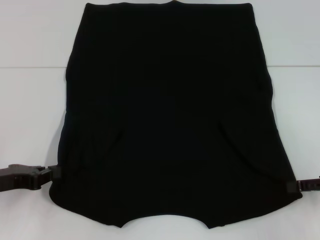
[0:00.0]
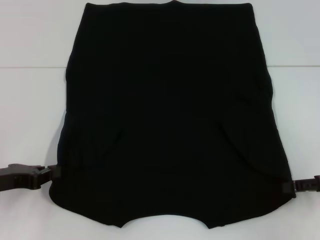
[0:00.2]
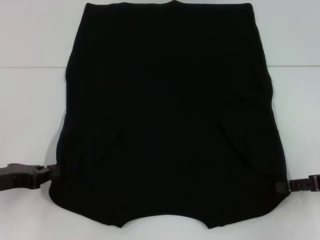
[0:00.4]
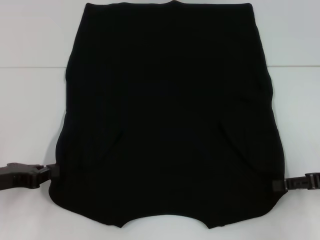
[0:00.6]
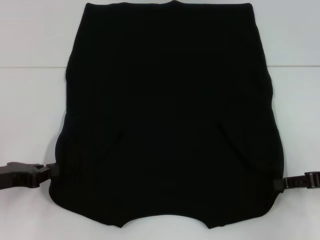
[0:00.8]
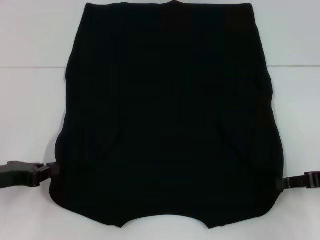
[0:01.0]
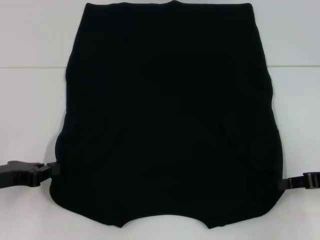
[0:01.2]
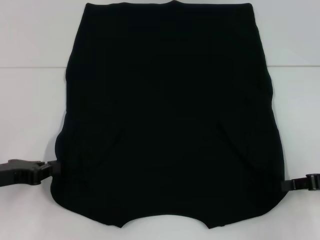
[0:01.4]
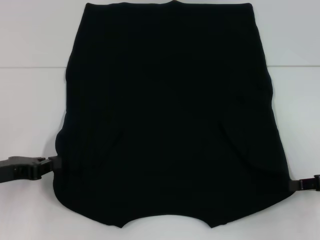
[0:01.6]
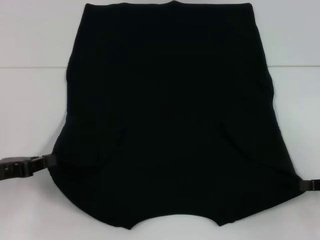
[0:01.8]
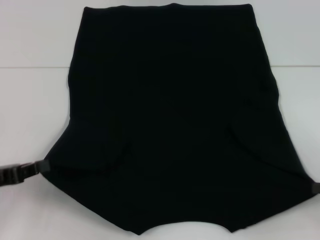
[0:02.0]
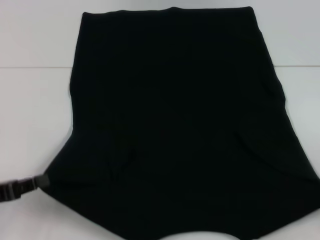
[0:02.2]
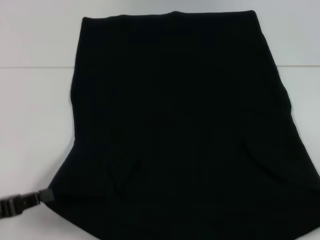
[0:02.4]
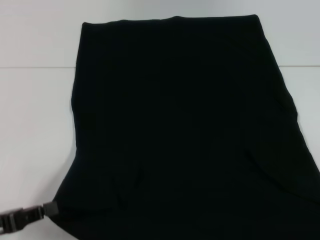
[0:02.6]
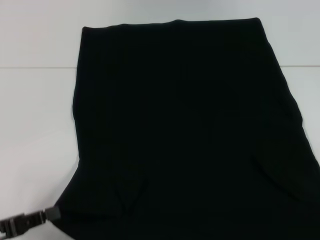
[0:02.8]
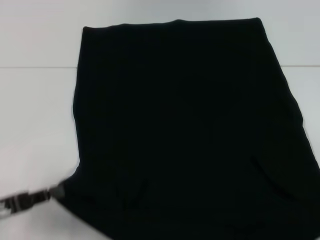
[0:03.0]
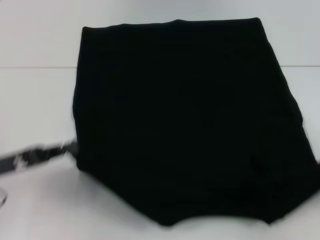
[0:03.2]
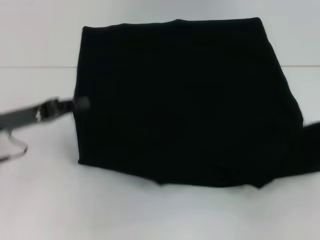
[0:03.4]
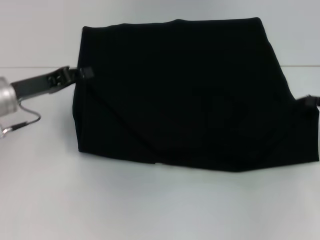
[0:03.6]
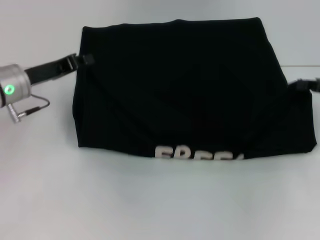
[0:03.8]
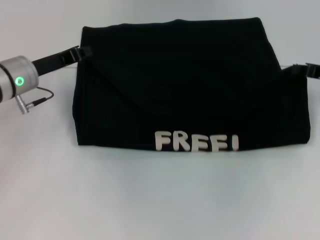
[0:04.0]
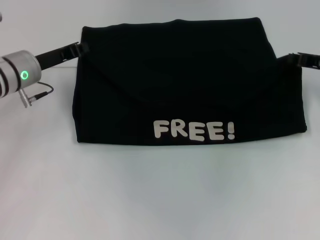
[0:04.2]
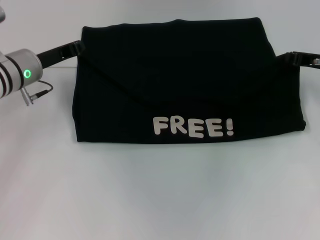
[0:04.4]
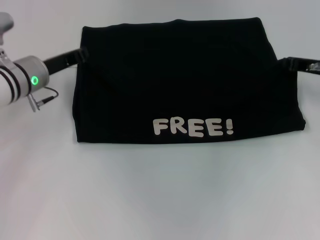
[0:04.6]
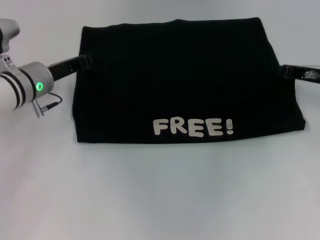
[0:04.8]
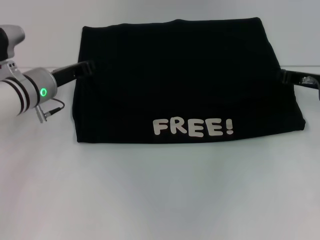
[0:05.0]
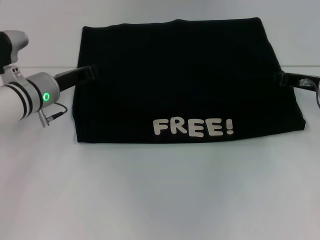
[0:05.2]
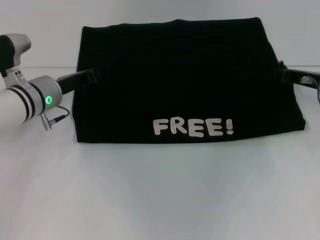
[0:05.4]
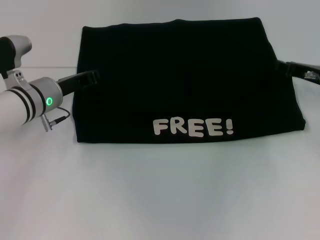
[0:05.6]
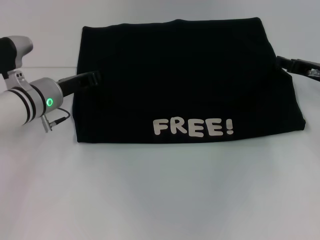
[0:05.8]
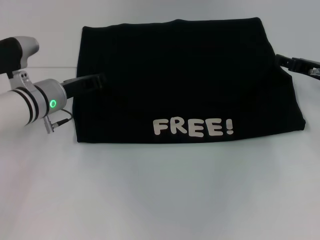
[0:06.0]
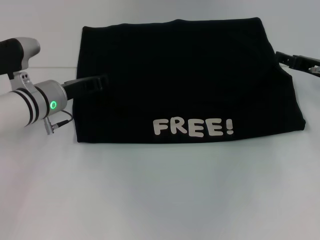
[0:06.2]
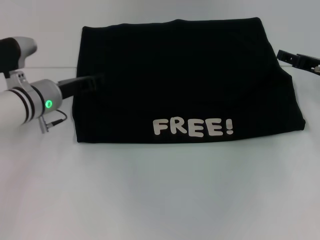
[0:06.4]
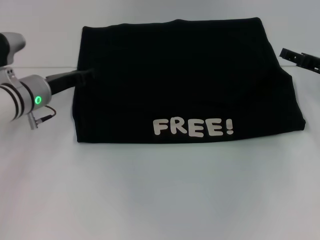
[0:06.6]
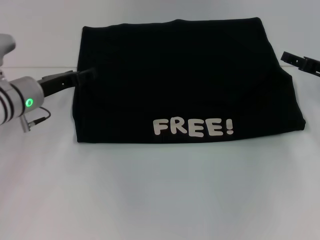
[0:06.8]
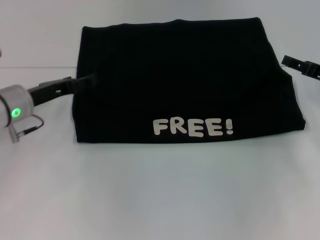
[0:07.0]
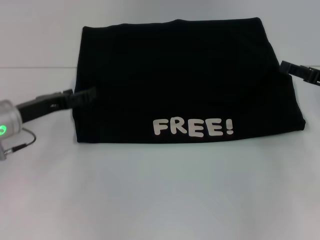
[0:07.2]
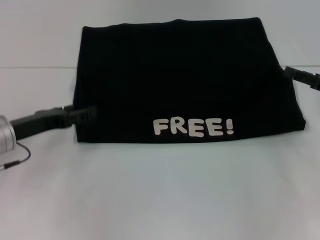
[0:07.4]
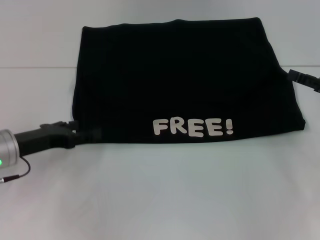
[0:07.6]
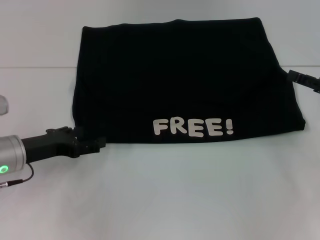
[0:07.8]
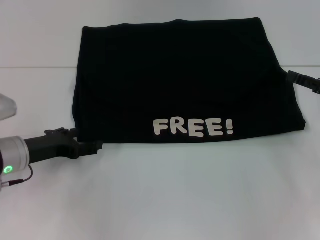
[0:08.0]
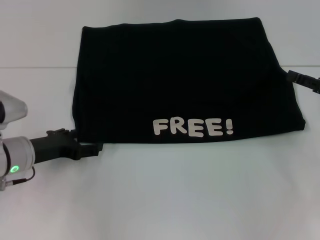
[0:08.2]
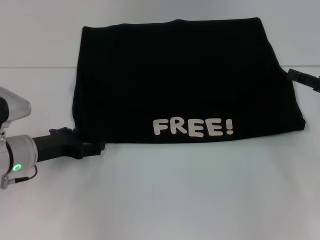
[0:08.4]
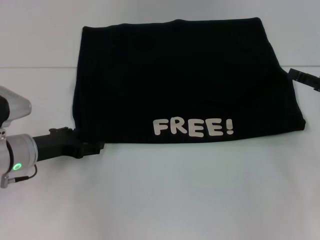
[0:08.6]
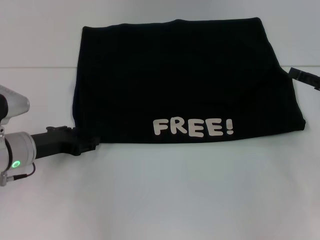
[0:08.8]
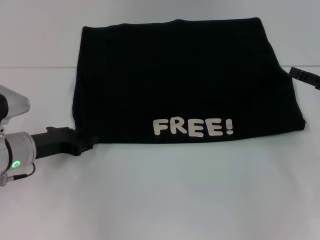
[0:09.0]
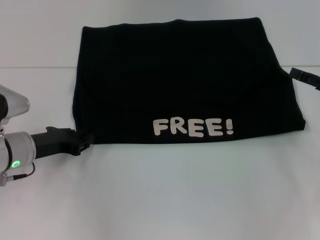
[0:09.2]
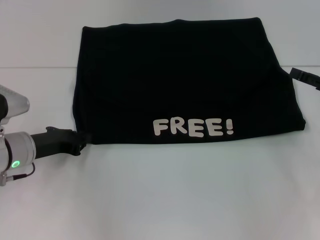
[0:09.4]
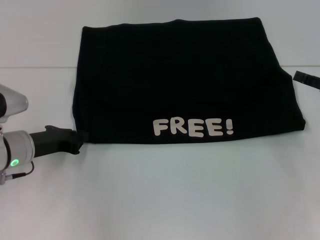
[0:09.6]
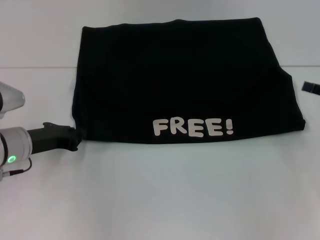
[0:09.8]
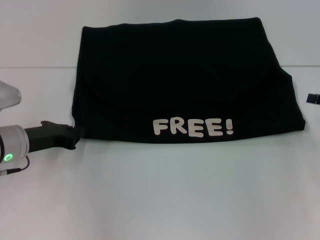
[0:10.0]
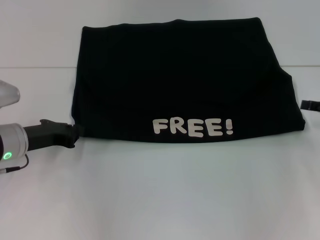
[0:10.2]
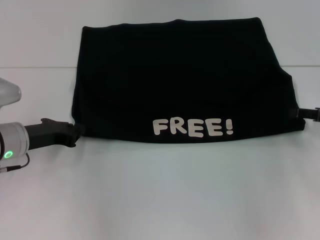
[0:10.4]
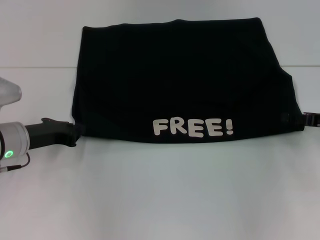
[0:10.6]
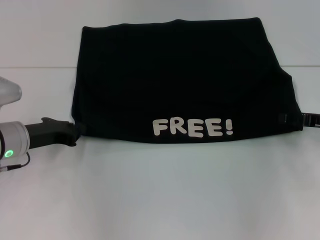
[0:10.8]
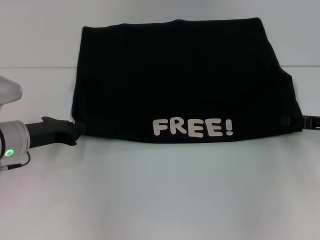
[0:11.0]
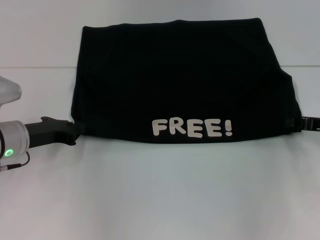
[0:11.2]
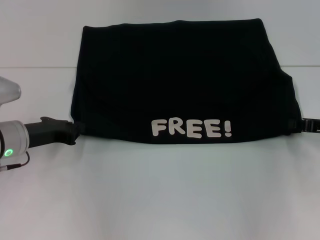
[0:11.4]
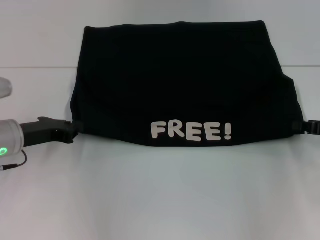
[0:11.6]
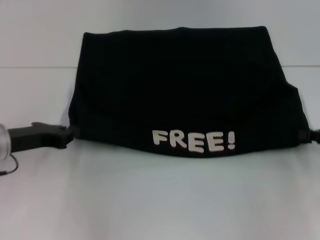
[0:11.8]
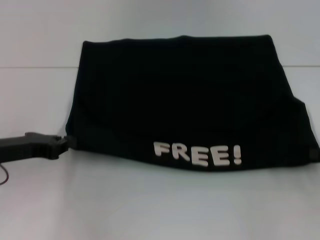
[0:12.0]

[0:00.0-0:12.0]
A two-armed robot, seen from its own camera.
Step, 0:00.0 to 0:01.8: Grab the bottom right corner with your right hand.
Step, 0:02.0 to 0:05.6: Fold the clothes with your left hand.
Step, 0:02.0 to 0:05.6: Fold the clothes with your right hand.
0:00.0 to 0:01.6: The right gripper closes up.
0:01.6 to 0:03.0: The right gripper shifts approximately 10 cm backward and to the right. Meanwhile the left gripper heads backward, covering about 10 cm.
0:03.0 to 0:04.4: The left gripper shifts about 25 cm forward, while the right gripper shifts about 25 cm forward and to the left.
0:04.4 to 0:06.0: The left gripper shifts by about 5 cm, while the right gripper opens up.
0:06.0 to 0:07.6: The right gripper shifts roughly 10 cm backward and to the right, while the left gripper goes roughly 10 cm backward and to the left, and opens up.
0:07.6 to 0:09.0: The grippers stay close to where they were, moving slightly.
0:09.0 to 0:10.4: The left gripper closes.
0:10.4 to 0:12.0: The left gripper moves some 5 cm. The right gripper shifts some 5 cm backward, and closes.

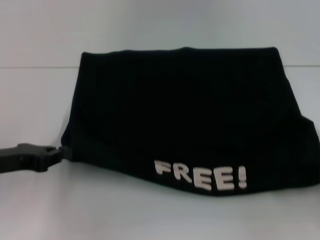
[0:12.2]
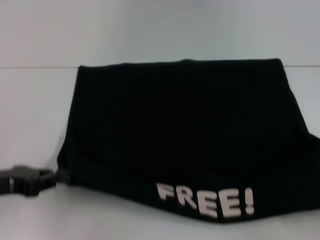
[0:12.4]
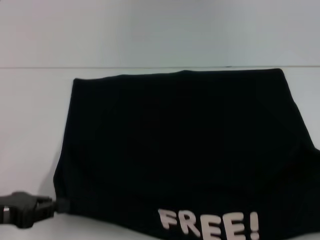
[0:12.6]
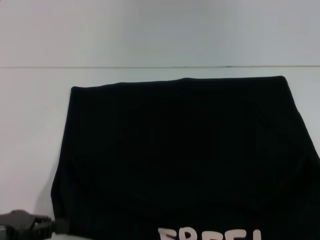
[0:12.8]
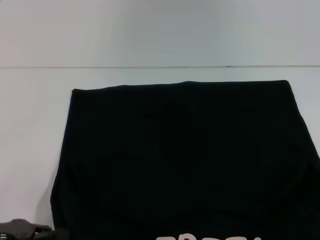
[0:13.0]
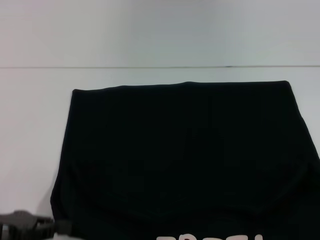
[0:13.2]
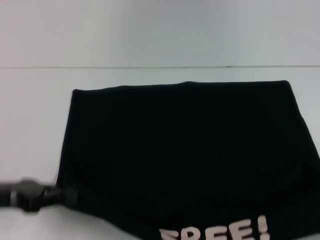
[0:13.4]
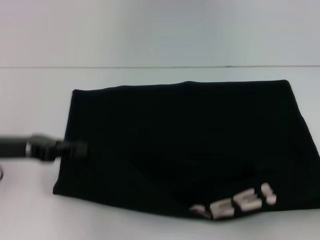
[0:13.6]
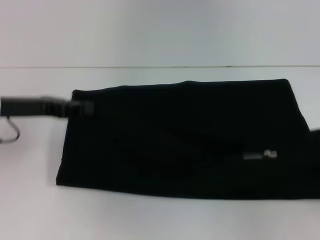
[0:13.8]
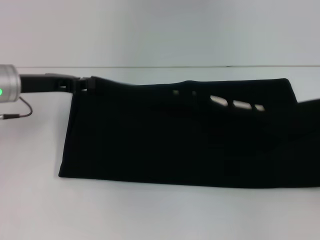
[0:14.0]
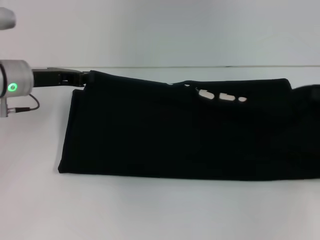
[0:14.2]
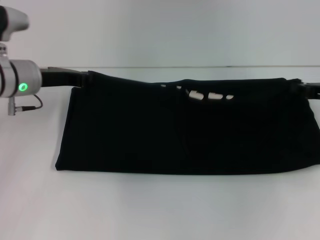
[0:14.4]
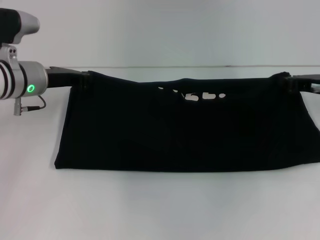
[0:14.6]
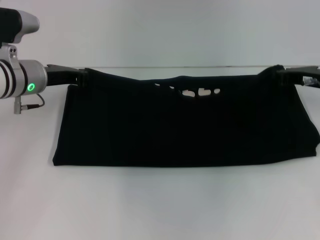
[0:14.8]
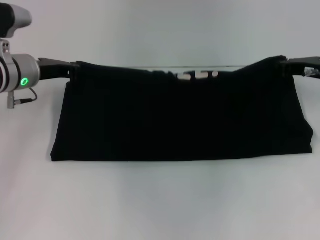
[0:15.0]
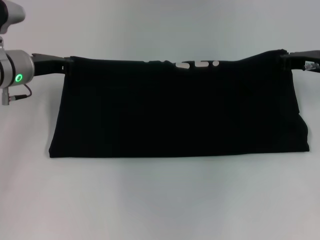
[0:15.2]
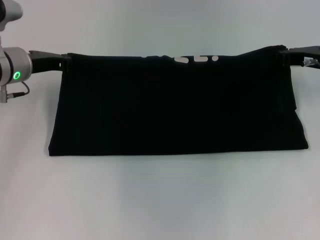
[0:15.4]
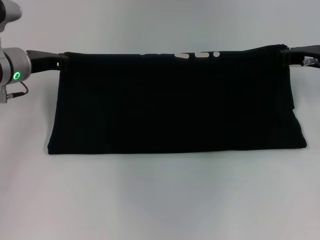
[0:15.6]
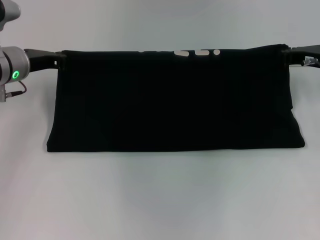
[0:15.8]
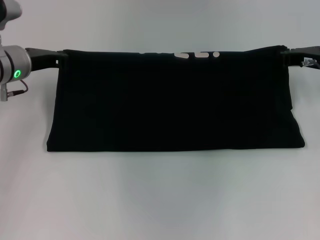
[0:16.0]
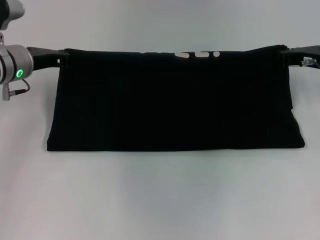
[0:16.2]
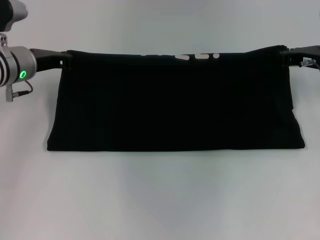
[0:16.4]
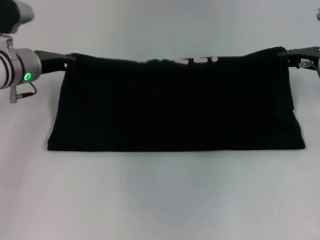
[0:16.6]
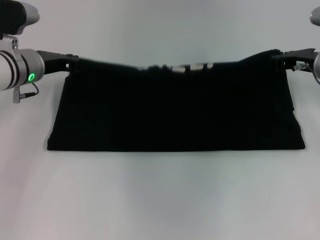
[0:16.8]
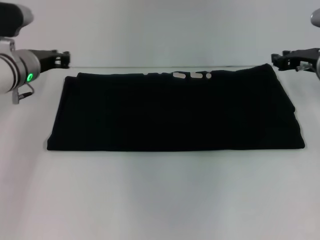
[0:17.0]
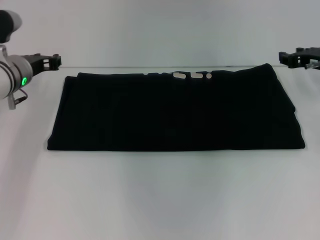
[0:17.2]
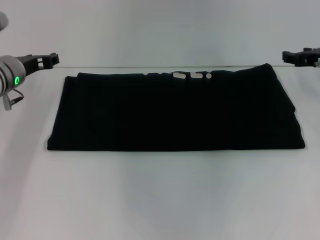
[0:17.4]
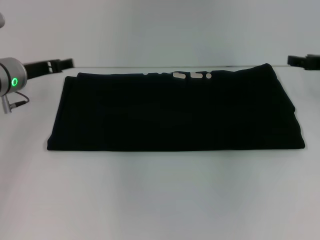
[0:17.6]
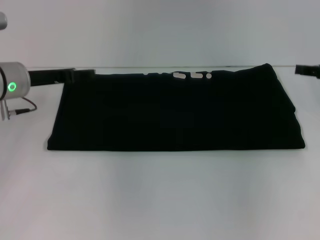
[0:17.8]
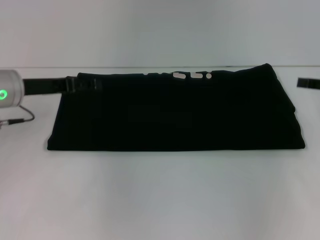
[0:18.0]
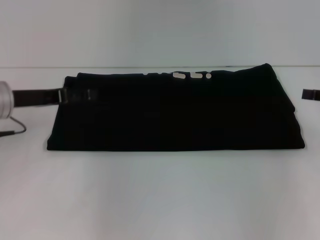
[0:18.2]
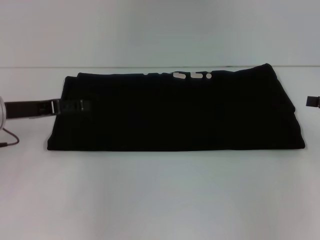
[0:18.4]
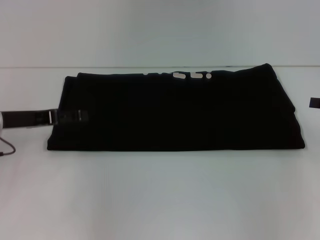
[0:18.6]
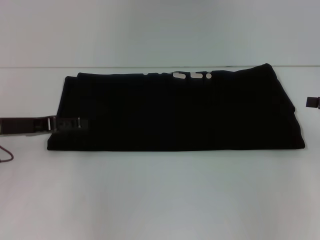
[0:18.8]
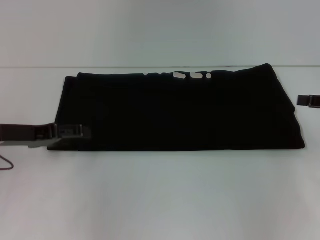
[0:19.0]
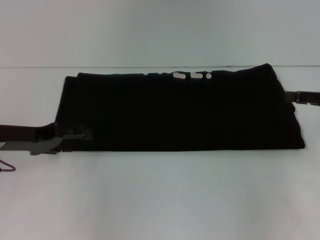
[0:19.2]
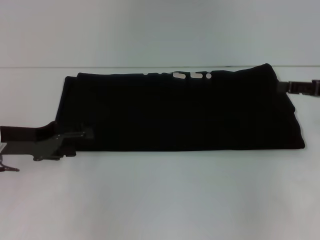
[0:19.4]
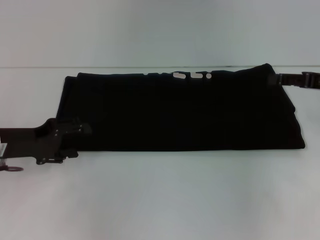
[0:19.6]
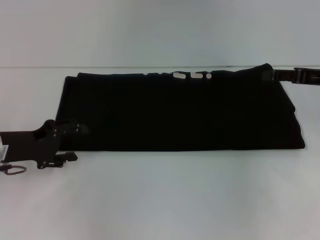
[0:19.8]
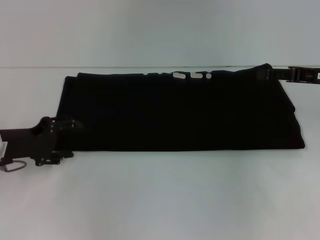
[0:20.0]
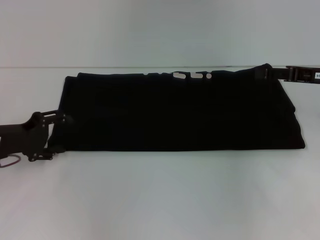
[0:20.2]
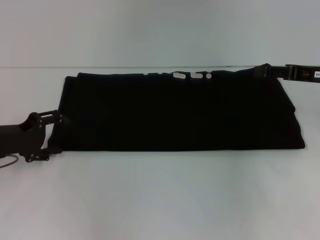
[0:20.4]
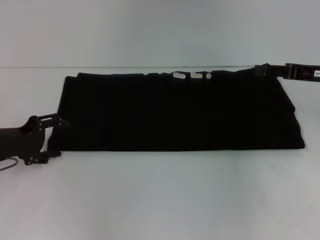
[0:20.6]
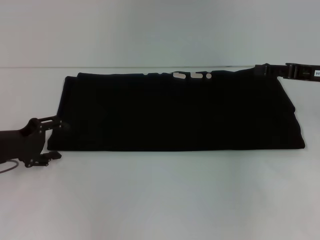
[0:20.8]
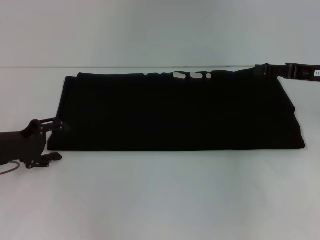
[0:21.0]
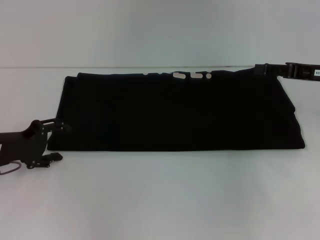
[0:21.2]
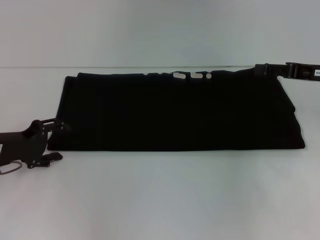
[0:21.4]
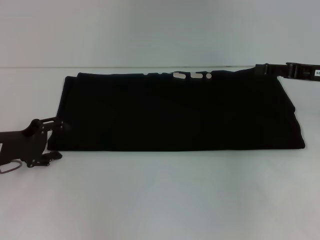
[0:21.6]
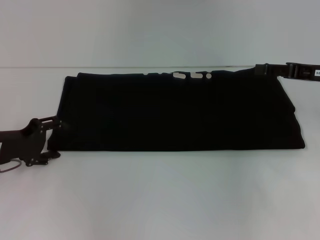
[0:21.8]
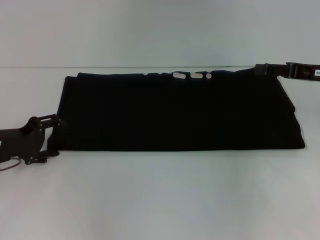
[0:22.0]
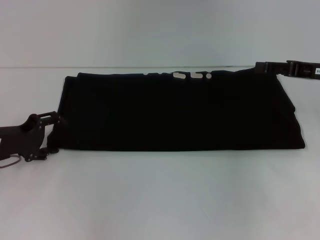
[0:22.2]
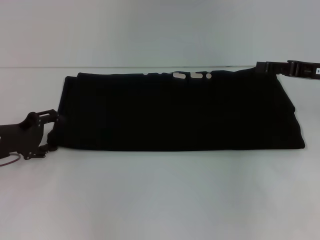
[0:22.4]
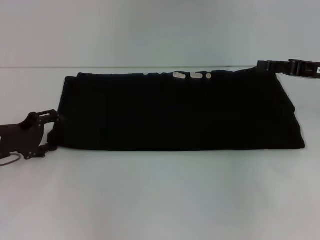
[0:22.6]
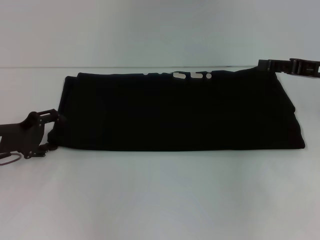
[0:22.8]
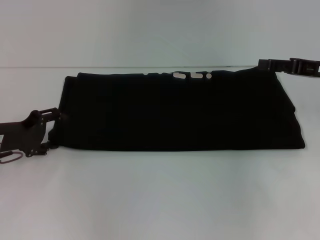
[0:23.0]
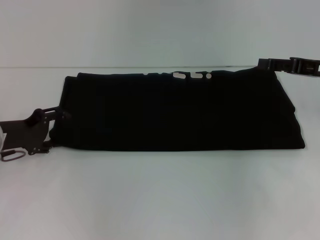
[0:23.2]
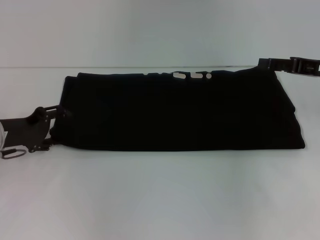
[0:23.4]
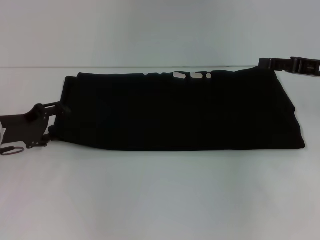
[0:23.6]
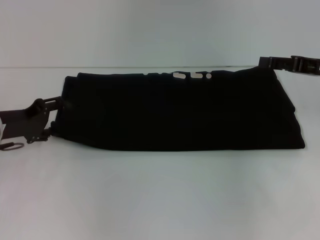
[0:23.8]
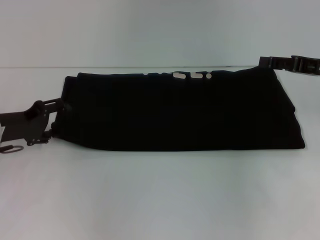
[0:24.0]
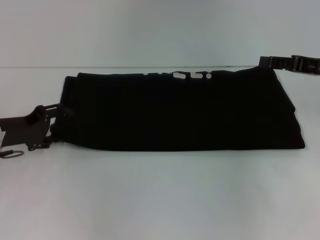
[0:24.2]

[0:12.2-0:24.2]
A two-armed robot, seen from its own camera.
Step, 0:12.8 to 0:17.2: Fold the clothes with your right hand.
0:12.2 to 0:13.8: The right gripper reaches some 10 cm backward, then returns; the left gripper travels forward by some 5 cm.
0:13.8 to 0:15.2: The right gripper shifts approximately 25 cm forward and to the left; the left gripper goes approximately 10 cm forward.
0:15.2 to 0:16.6: The two grippers keep their place.
0:16.6 to 0:18.2: The right gripper heads to the right and backward, covering approximately 15 cm, and opens its fingers. Meanwhile the left gripper moves backward, roughly 5 cm, and opens its fingers.
0:18.2 to 0:19.8: The right gripper moves to the left, about 5 cm, while the left gripper moves roughly 5 cm.
0:19.8 to 0:24.2: The grippers move only a little.
